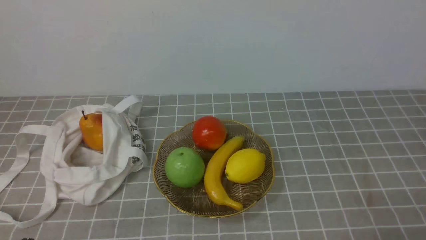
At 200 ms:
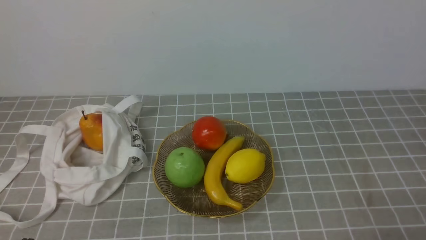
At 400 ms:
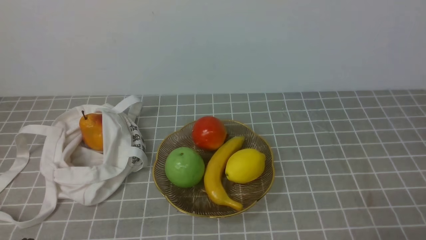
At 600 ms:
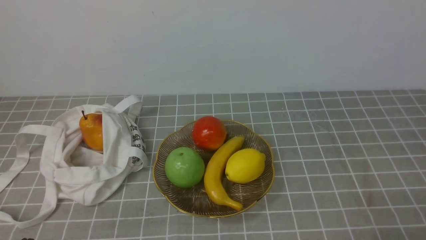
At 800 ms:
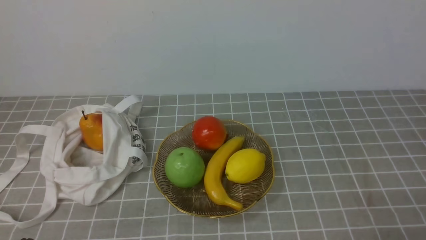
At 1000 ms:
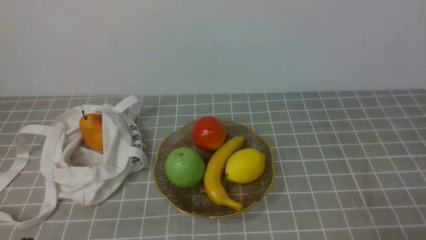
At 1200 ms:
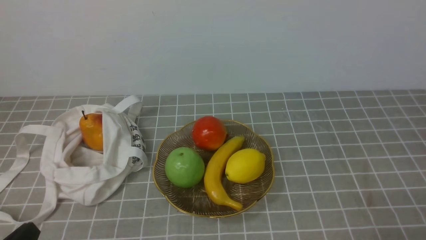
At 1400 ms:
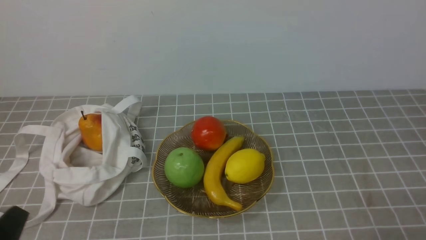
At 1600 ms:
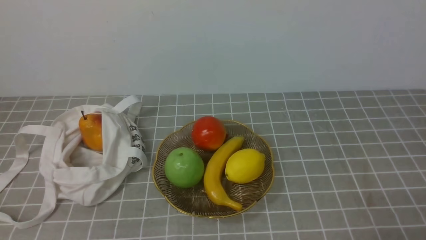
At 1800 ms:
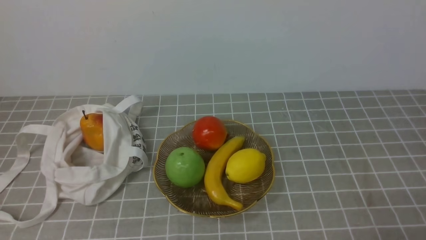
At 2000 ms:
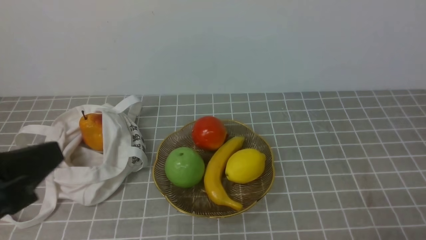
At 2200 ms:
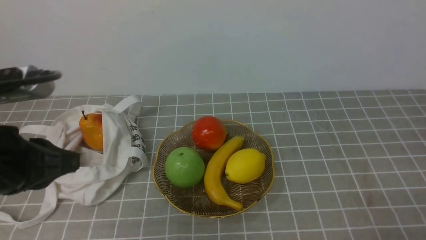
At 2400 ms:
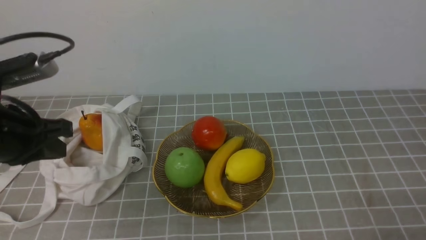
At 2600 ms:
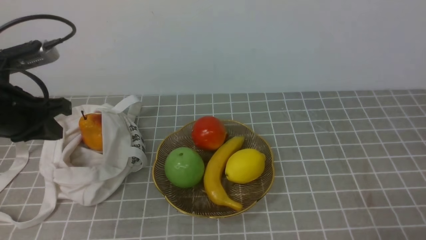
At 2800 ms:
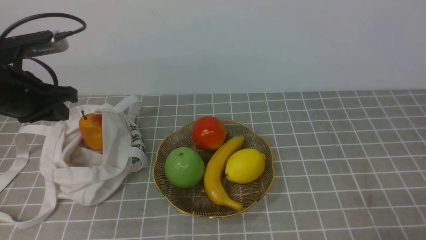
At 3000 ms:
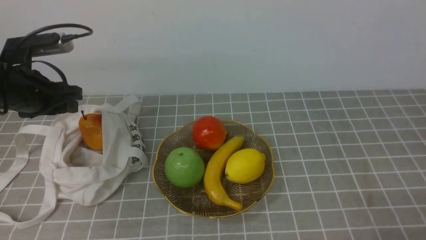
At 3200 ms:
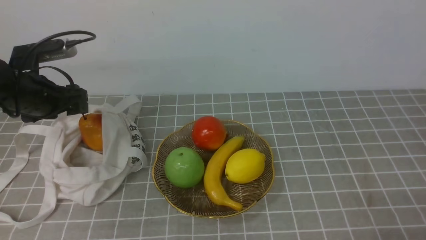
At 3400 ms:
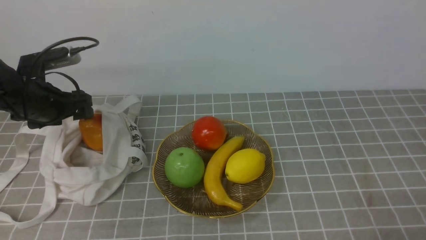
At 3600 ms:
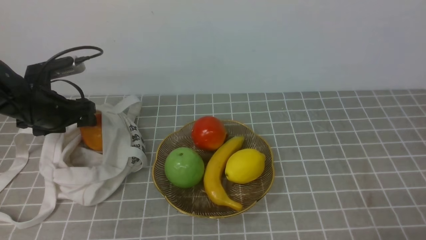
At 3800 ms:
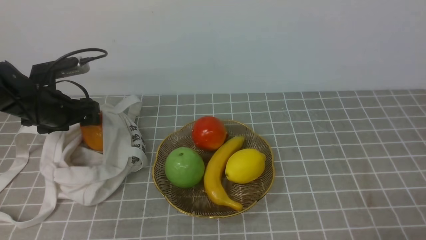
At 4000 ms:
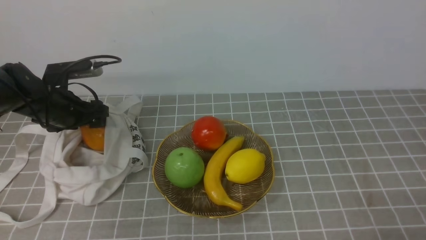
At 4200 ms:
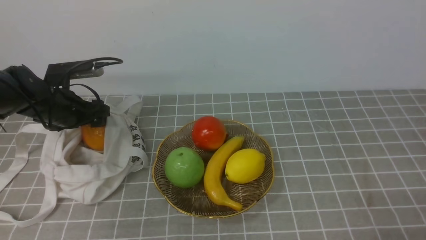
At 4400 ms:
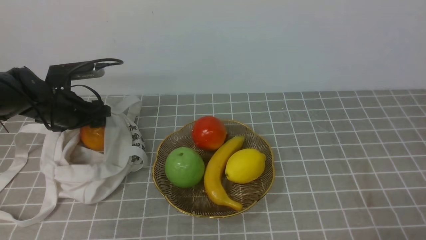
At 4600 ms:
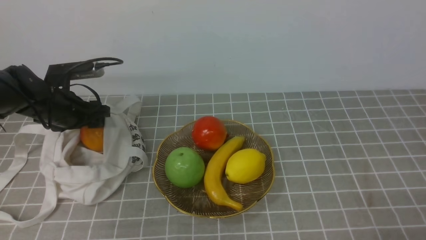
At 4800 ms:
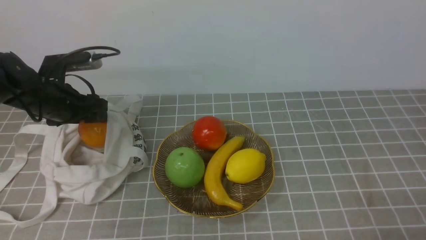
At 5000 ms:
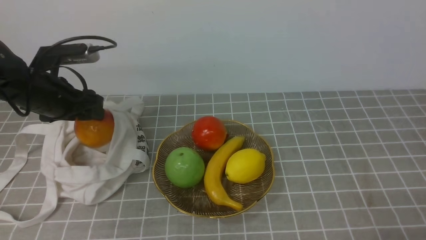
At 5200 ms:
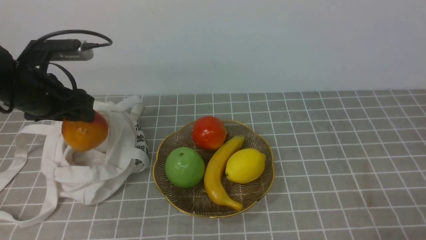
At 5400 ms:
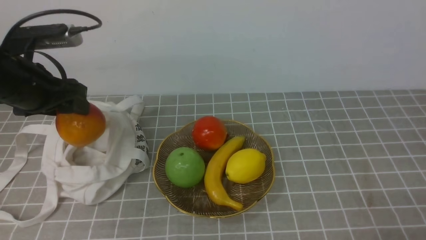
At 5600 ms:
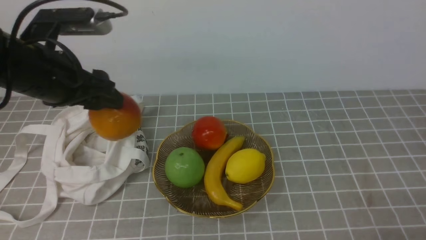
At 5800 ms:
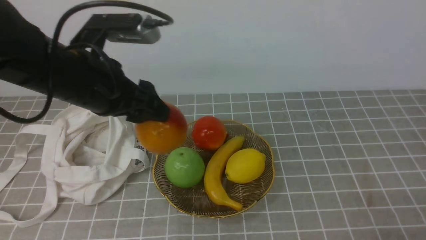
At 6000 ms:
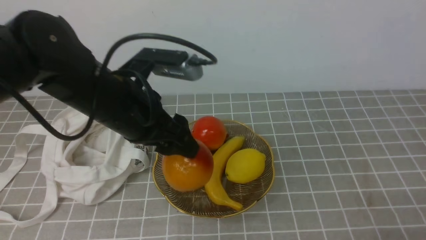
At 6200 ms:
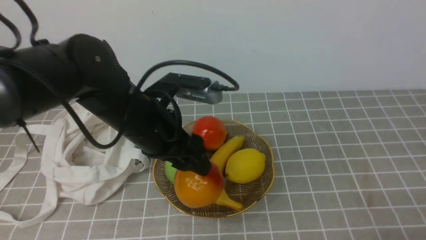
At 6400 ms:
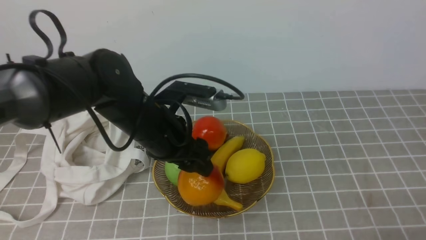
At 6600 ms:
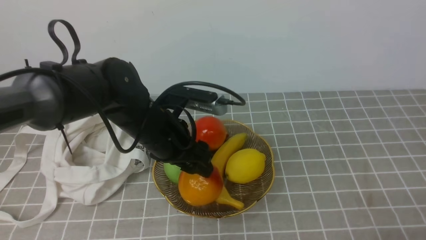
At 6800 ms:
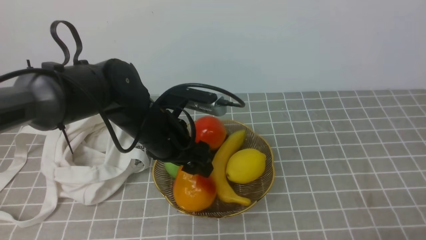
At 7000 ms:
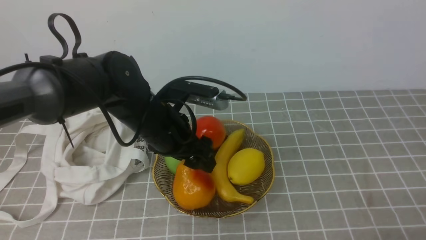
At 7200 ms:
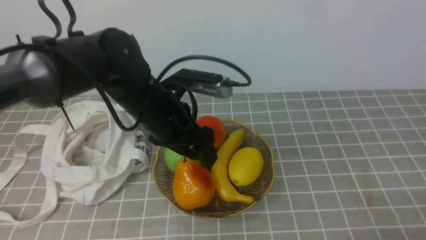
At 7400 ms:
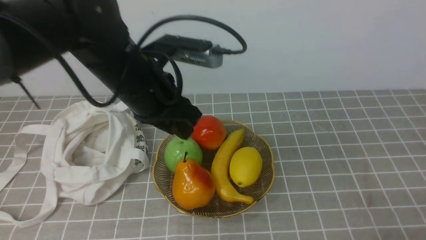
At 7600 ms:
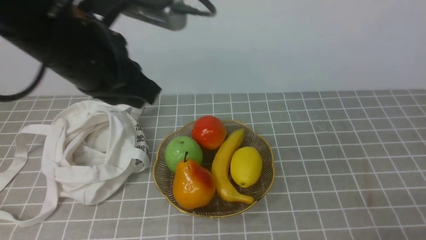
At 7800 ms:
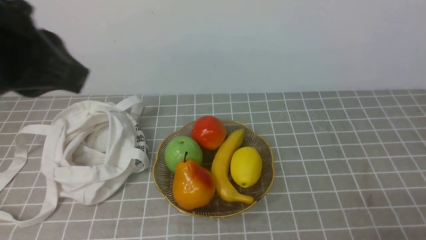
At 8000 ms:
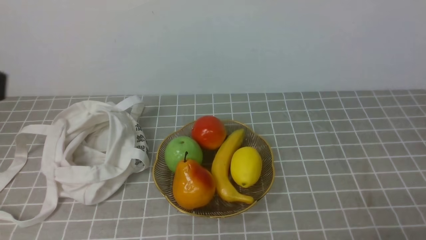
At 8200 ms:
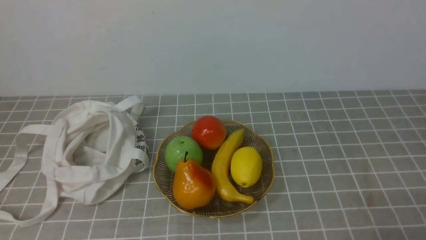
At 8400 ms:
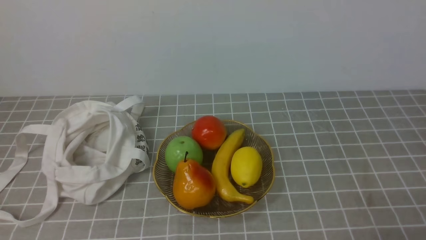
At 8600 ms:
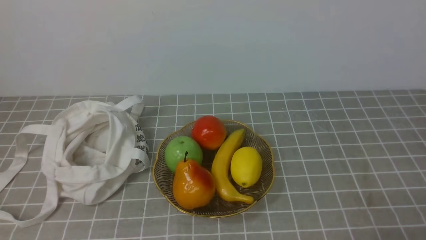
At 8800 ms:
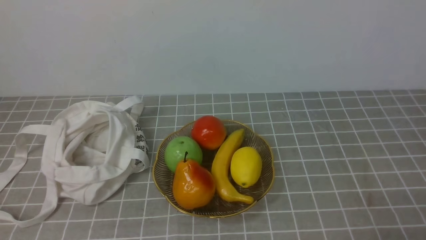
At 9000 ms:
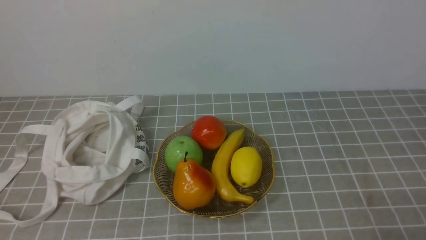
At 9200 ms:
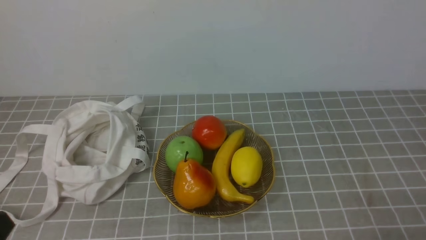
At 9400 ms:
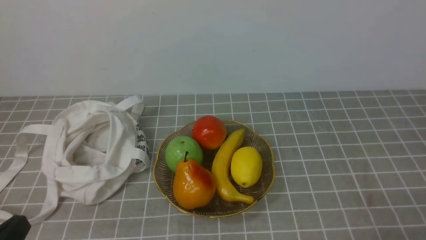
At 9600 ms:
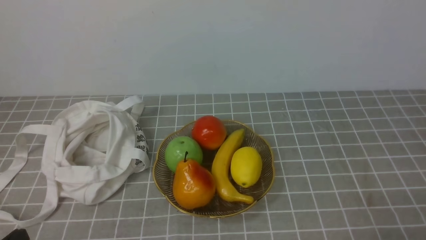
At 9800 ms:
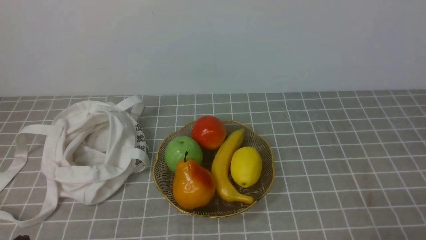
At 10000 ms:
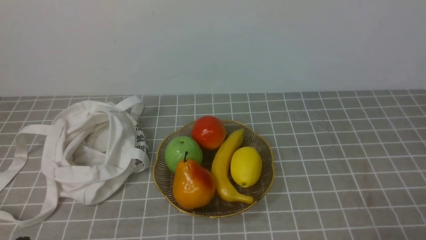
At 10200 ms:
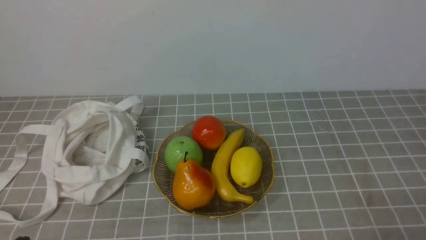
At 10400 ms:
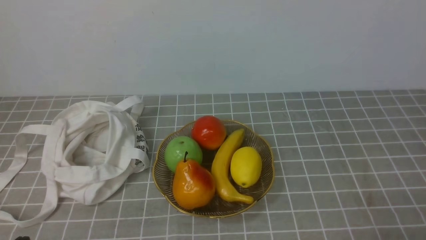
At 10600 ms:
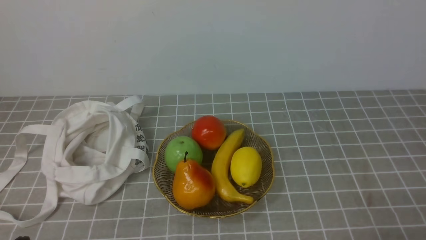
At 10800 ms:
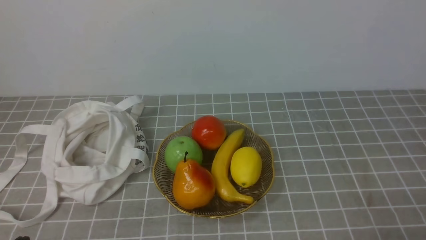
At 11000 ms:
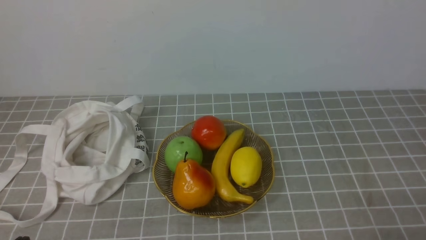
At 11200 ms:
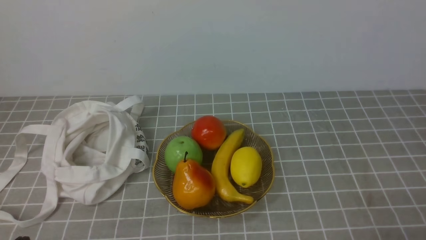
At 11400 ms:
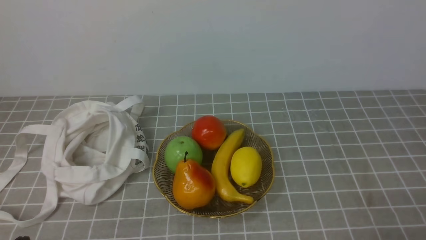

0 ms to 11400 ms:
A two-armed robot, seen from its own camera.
Step, 0 ms to 5000 ms: use the left arm to grab a pear from the bag.
Step, 5200 ms to 7200 ms: use the left arm to put the pear into the empty plate on the right.
1400 ms to 2800 ms: The left gripper heads forward, covering roughly 25 cm.
2800 ms to 4200 ms: The left gripper shifts approximately 10 cm downward and forward, and opens up.
4200 ms to 5600 ms: The left gripper moves upward, backward and to the right, some 20 cm.
5600 ms to 7200 ms: The left gripper goes approximately 10 cm to the right.
7200 ms to 8600 ms: The left gripper goes roughly 35 cm backward and to the left, and closes.
10000 ms to 11400 ms: Both grippers stay put.
